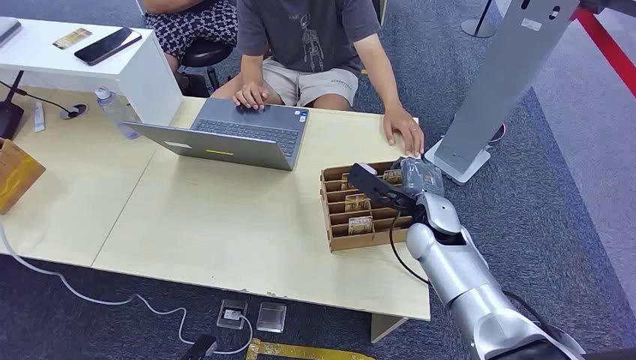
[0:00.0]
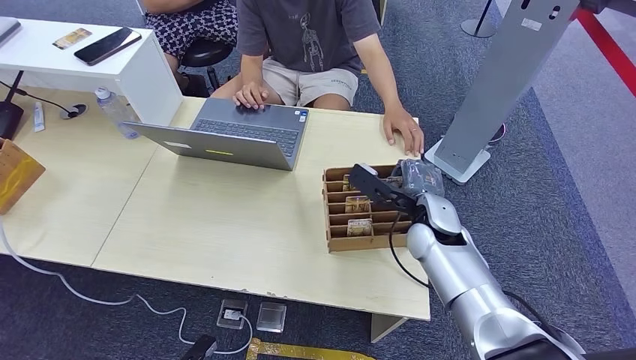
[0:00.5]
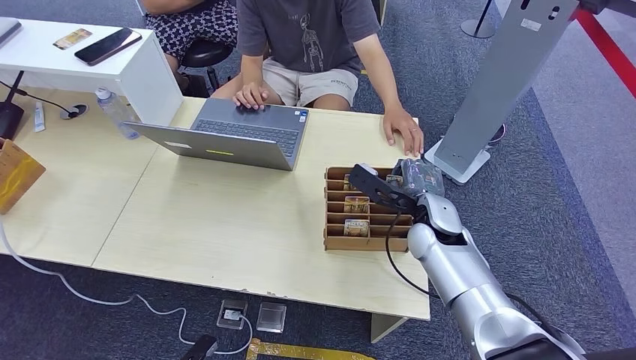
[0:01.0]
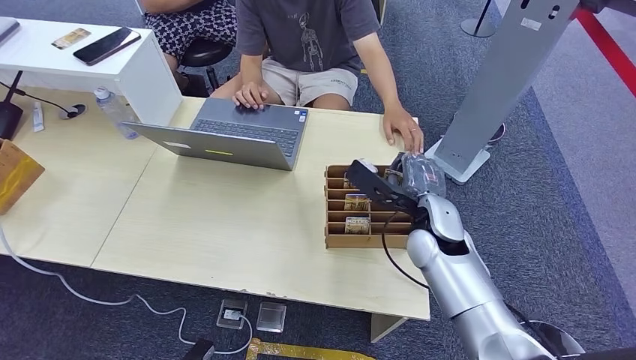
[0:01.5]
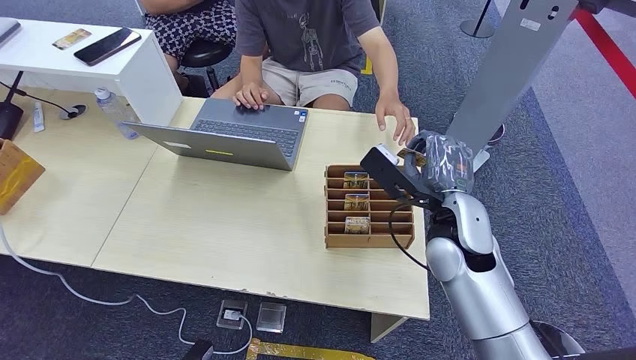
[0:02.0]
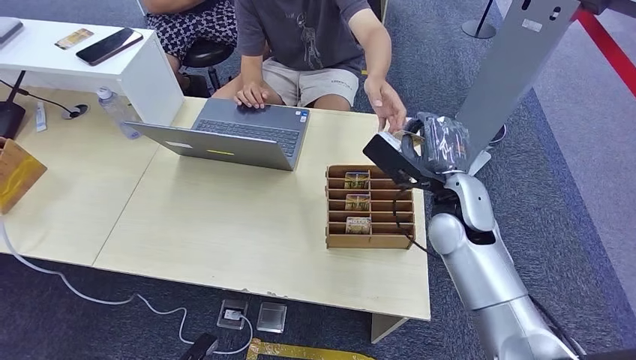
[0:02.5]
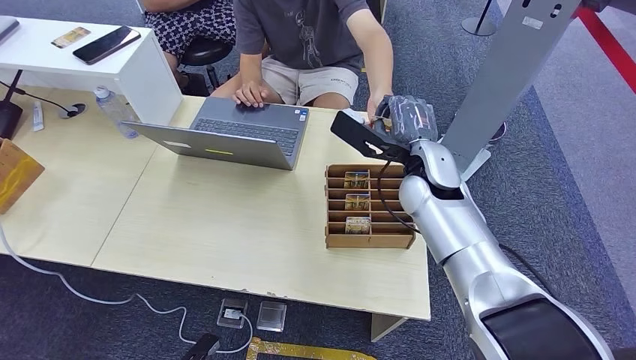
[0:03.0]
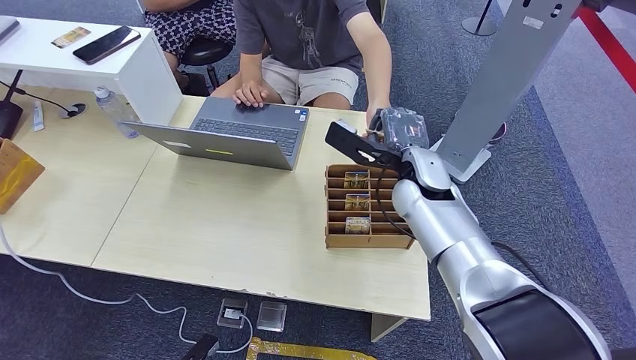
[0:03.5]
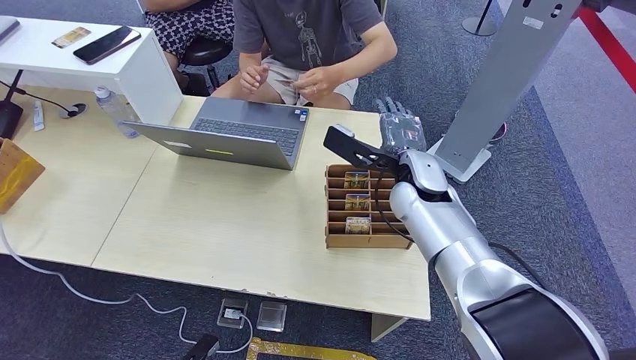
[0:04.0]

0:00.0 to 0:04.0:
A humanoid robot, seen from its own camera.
Step, 0:00.0 to 0:02.0: Pick up the room card from the card holder.
Step, 0:02.5 to 0:04.0: Hand the room card to the target.
0:02.0 to 0:04.0: The right hand heads forward, covering some 10 cm.
